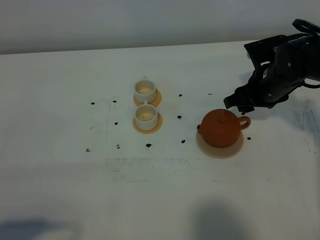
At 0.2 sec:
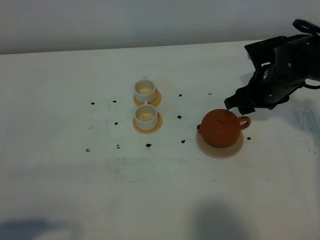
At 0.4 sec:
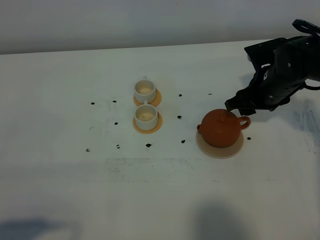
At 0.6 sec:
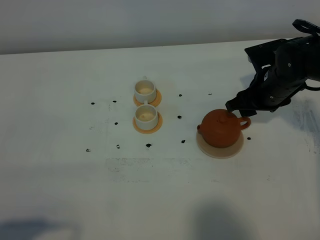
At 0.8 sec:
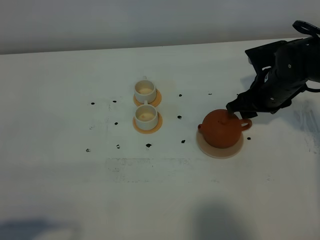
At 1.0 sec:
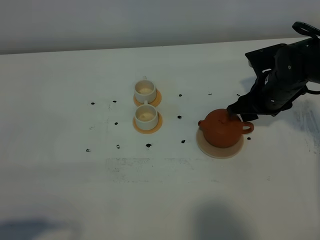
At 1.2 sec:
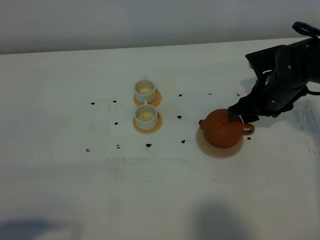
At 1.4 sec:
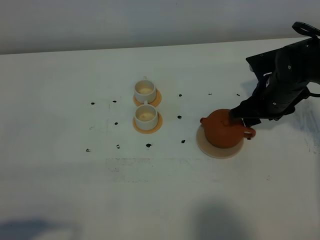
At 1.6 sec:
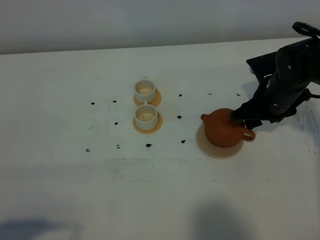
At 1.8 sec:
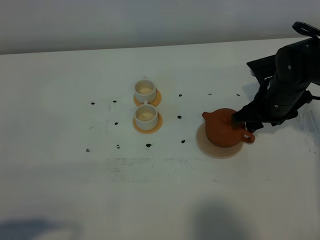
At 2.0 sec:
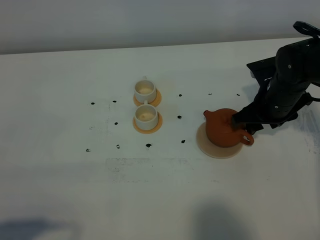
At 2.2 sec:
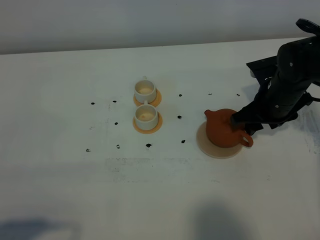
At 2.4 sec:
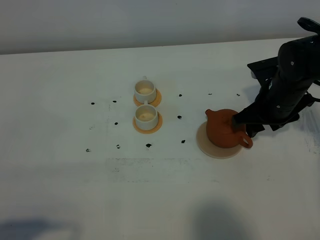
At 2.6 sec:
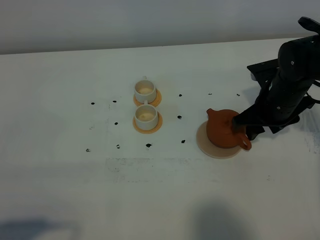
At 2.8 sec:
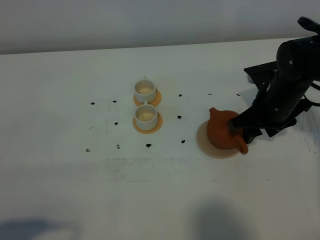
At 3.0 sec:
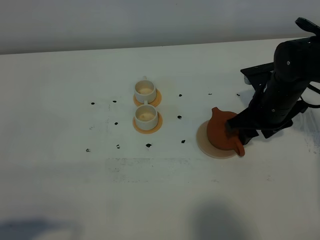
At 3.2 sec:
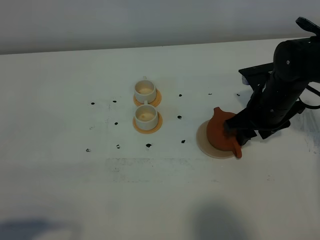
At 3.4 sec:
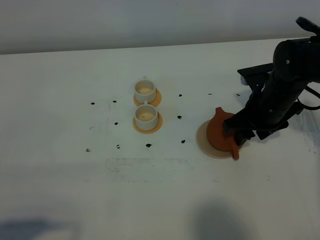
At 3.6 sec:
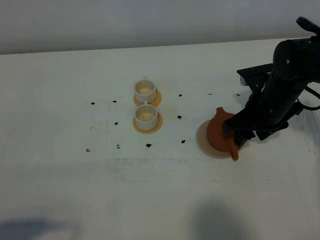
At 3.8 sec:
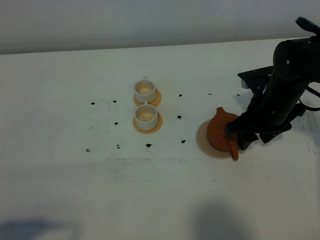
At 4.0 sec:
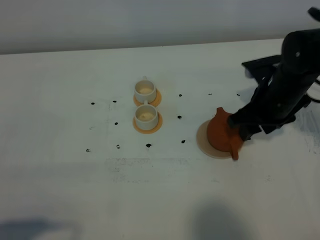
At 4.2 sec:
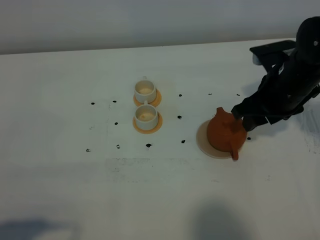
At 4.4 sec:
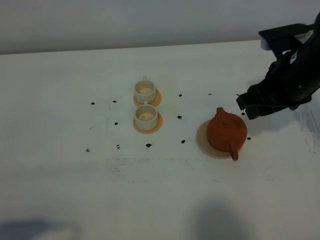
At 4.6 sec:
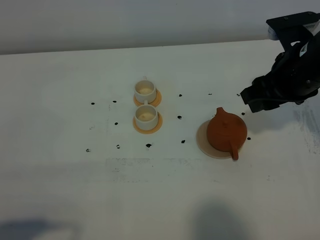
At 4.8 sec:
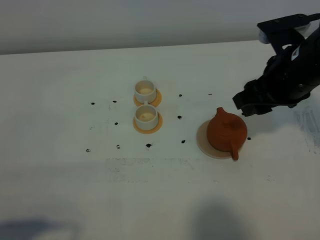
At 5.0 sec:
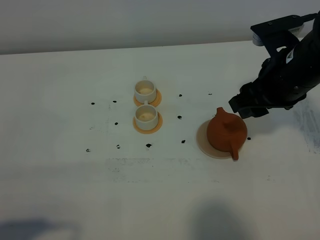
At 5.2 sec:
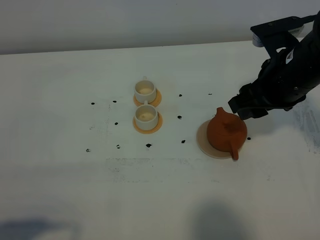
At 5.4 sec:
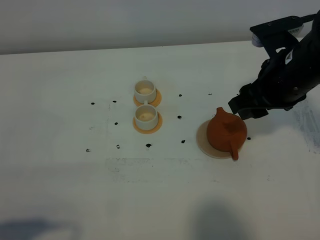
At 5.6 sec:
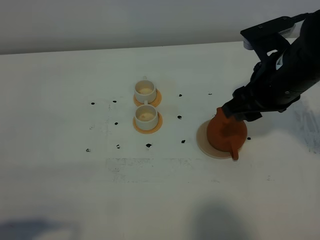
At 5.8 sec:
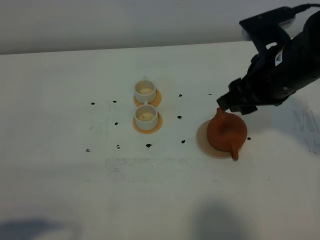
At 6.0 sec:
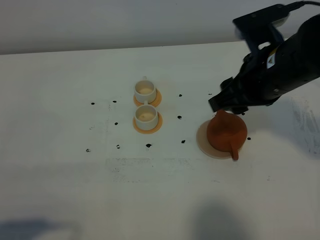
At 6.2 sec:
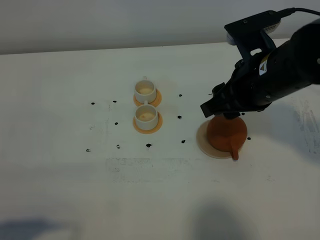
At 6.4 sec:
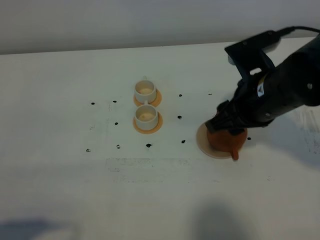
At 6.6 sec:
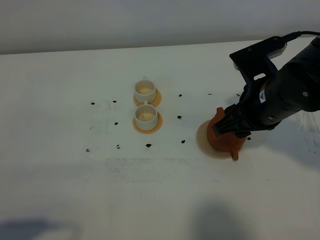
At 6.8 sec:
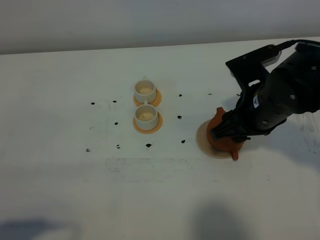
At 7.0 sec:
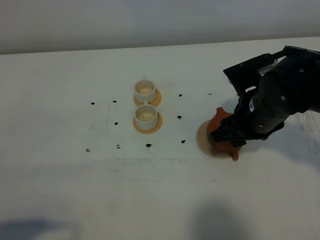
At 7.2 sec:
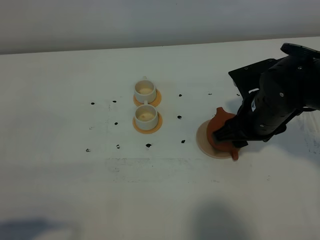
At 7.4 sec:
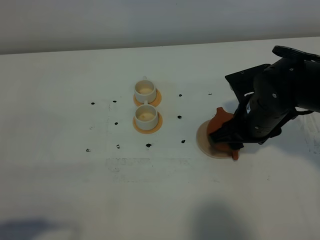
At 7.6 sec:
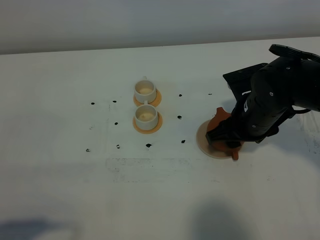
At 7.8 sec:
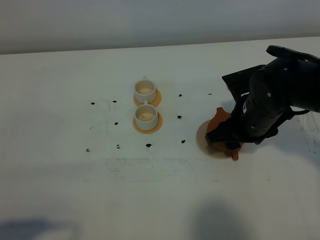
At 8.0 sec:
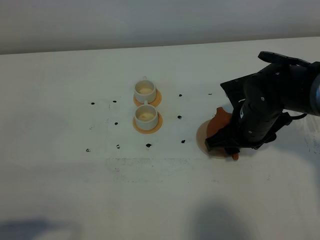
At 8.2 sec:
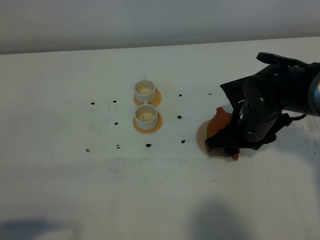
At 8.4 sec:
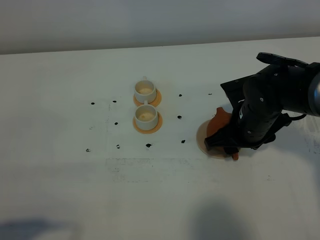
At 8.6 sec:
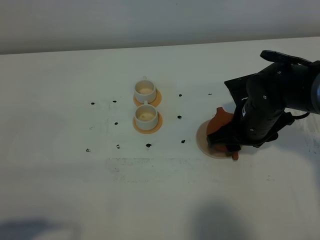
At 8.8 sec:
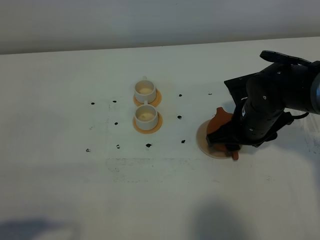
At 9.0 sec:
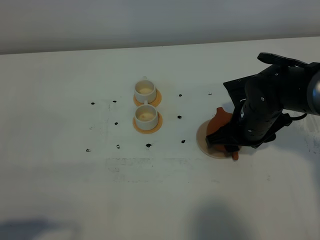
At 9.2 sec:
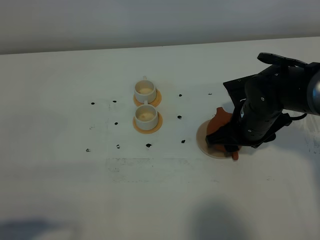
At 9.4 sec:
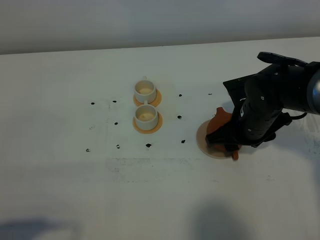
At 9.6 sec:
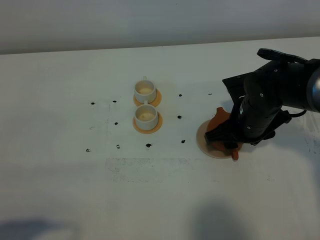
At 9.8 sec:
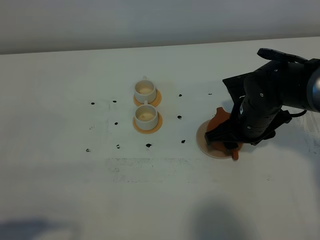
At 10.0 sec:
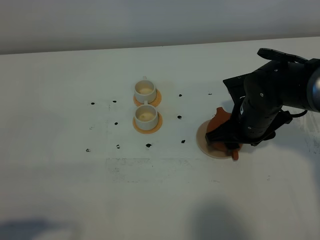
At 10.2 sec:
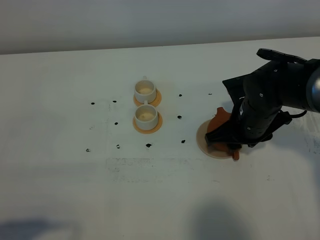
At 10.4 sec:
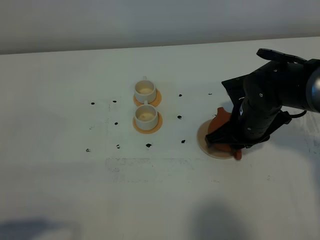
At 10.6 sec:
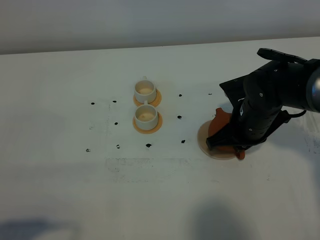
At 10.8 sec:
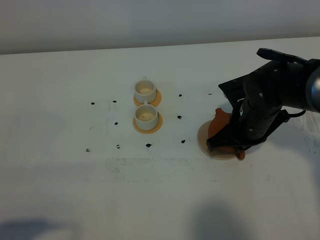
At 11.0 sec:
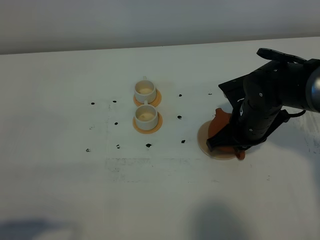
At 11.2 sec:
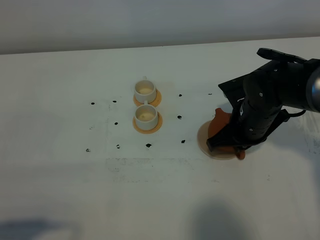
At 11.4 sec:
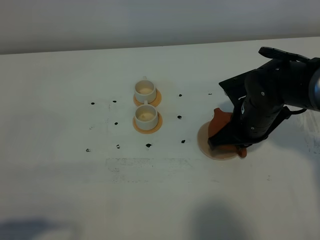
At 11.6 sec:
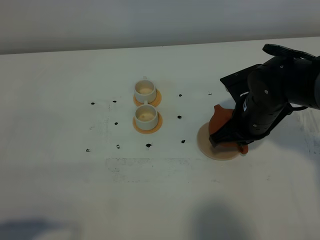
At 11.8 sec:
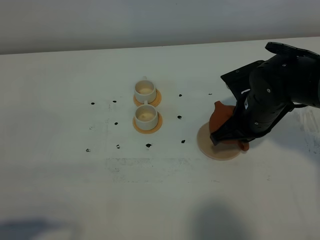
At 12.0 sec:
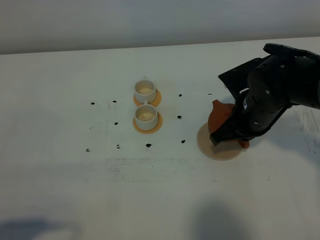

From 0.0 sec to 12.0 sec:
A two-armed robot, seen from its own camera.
Task of the whole recording: grasp the brown teapot and pour the tea into the two white teacups one by one, put the brown teapot back in its original place.
From 0.0 sec to 3.0 sec: The grippers make only small movements.
From 3.0 sec to 4.4 sec: The right gripper is displaced upward by approximately 10 cm.
From 4.4 sec to 6.0 sec: The right gripper moves to the left, roughly 5 cm.
From 6.0 sec to 7.6 sec: The right gripper goes approximately 10 cm downward.
From 7.6 sec to 9.0 sec: The grippers make only small movements.
From 9.0 sec to 10.4 sec: The right gripper closes its fingers.
From 10.4 sec to 12.0 sec: The grippers stay close to where they were, moving slightly.

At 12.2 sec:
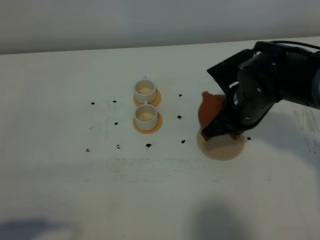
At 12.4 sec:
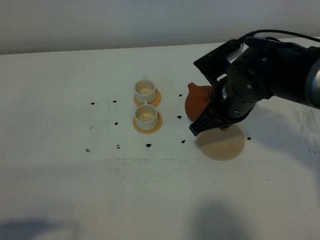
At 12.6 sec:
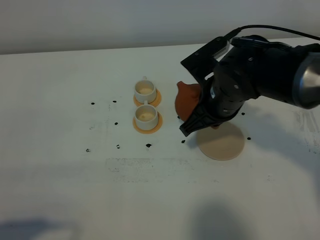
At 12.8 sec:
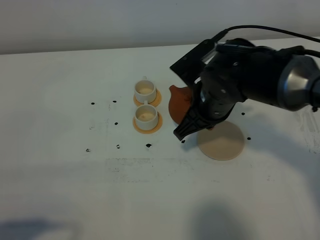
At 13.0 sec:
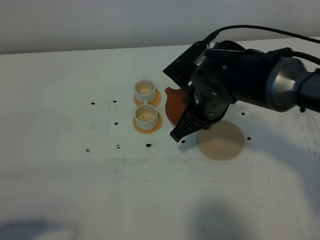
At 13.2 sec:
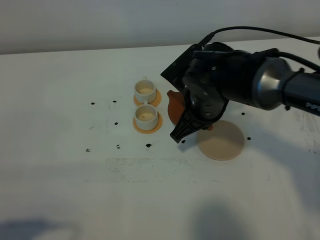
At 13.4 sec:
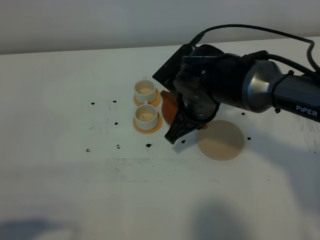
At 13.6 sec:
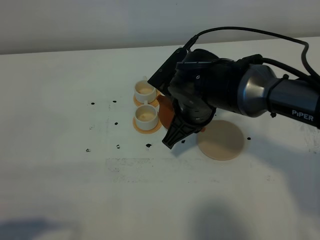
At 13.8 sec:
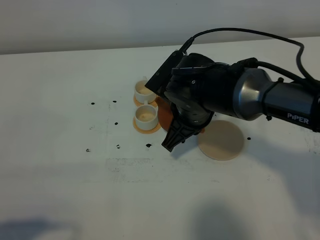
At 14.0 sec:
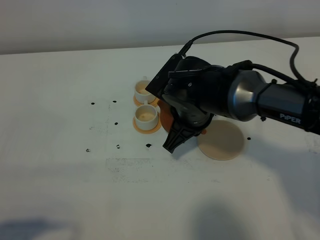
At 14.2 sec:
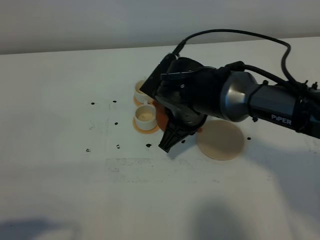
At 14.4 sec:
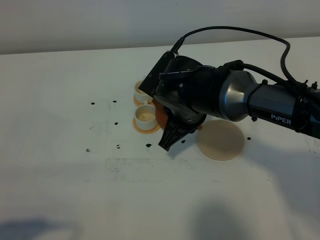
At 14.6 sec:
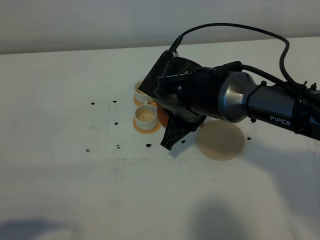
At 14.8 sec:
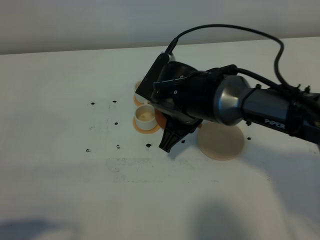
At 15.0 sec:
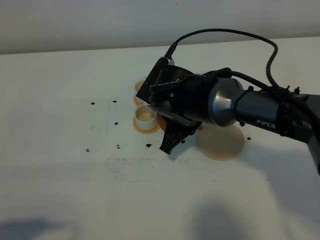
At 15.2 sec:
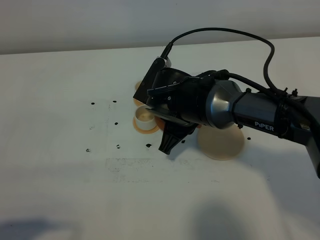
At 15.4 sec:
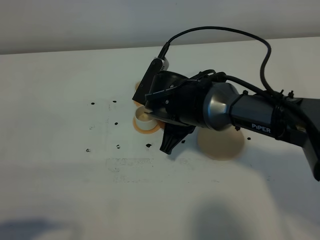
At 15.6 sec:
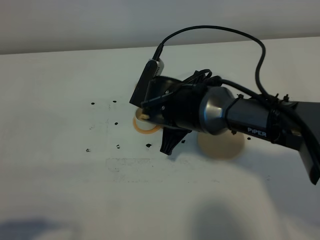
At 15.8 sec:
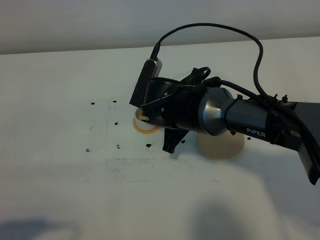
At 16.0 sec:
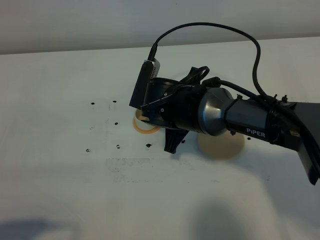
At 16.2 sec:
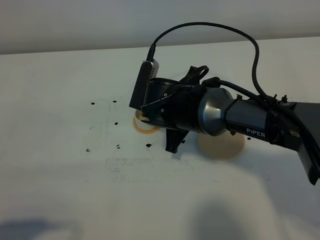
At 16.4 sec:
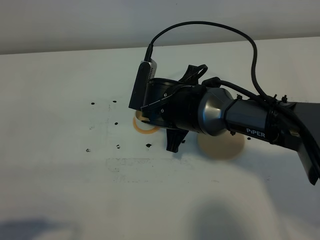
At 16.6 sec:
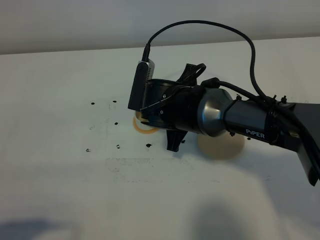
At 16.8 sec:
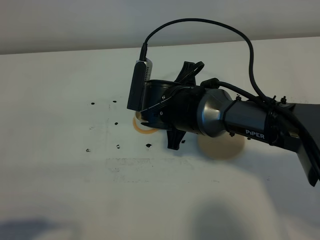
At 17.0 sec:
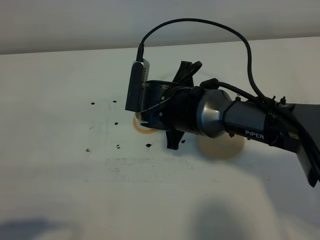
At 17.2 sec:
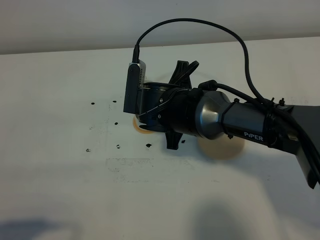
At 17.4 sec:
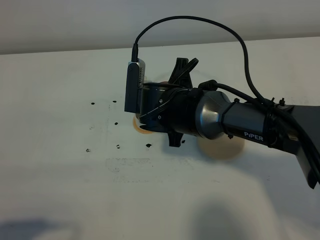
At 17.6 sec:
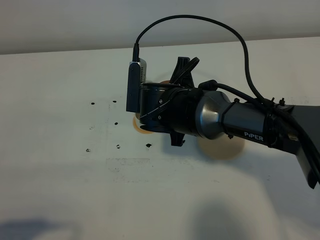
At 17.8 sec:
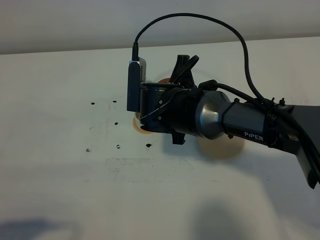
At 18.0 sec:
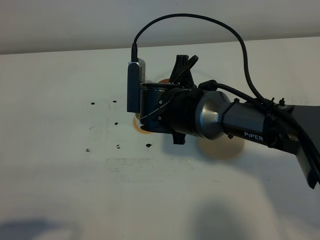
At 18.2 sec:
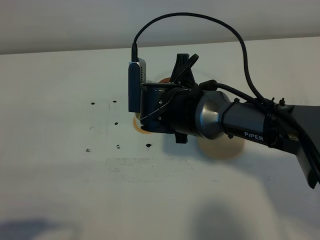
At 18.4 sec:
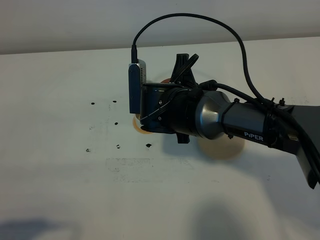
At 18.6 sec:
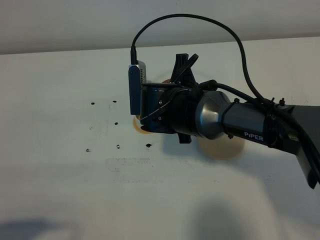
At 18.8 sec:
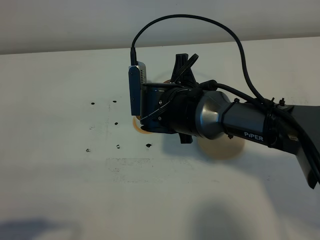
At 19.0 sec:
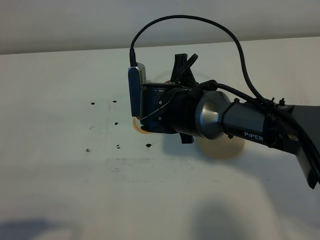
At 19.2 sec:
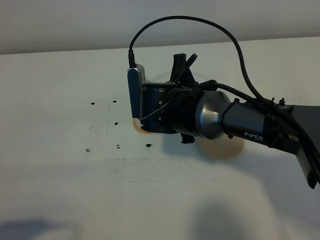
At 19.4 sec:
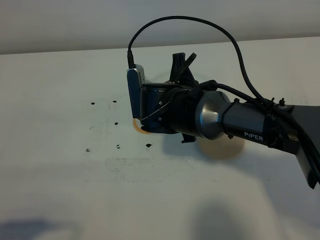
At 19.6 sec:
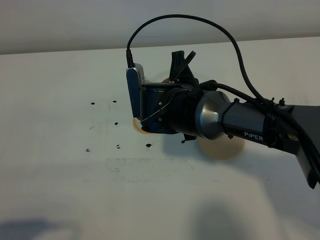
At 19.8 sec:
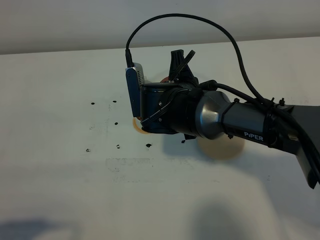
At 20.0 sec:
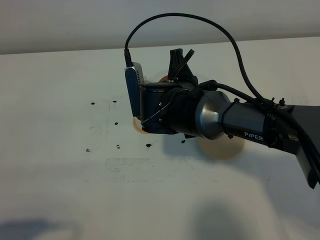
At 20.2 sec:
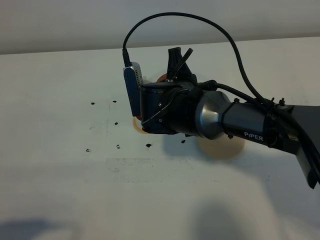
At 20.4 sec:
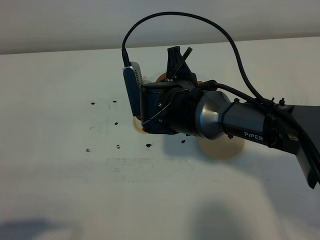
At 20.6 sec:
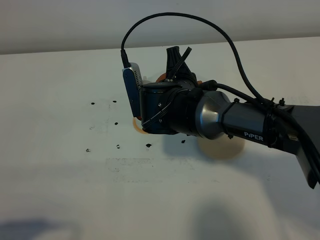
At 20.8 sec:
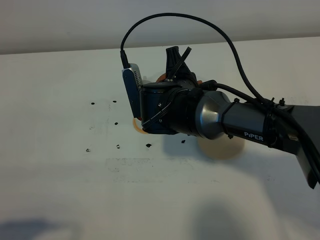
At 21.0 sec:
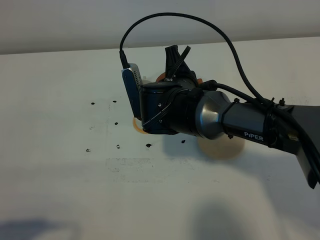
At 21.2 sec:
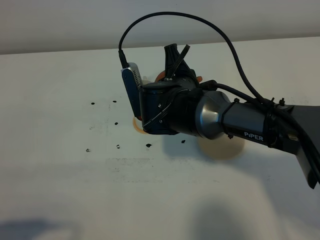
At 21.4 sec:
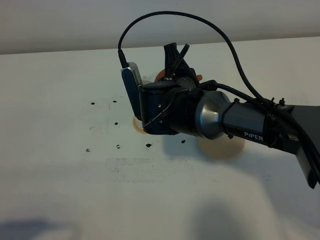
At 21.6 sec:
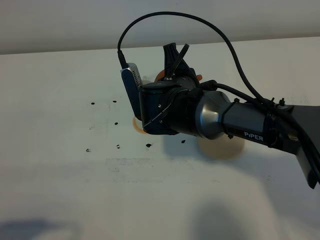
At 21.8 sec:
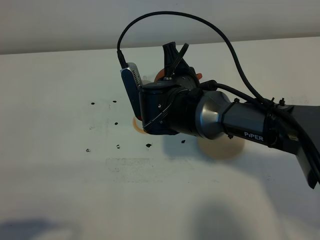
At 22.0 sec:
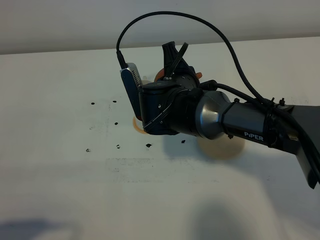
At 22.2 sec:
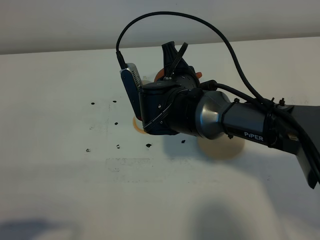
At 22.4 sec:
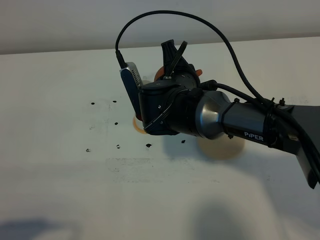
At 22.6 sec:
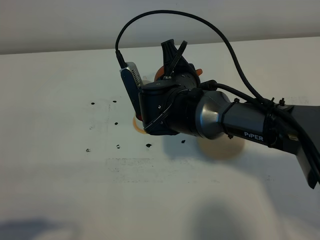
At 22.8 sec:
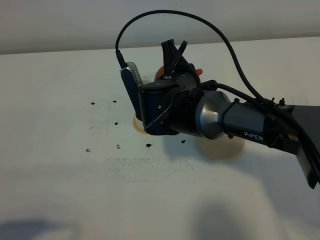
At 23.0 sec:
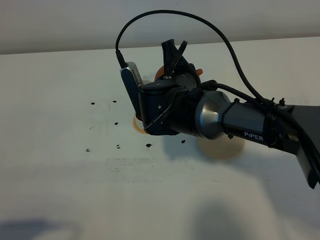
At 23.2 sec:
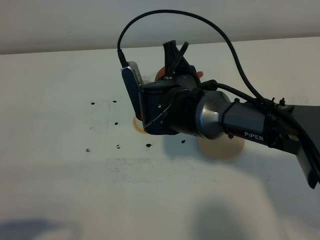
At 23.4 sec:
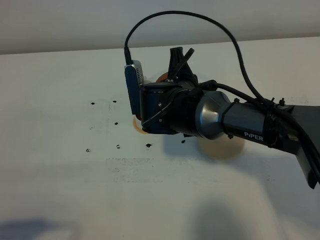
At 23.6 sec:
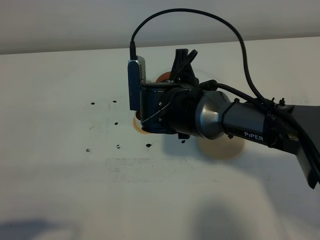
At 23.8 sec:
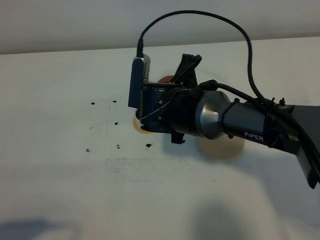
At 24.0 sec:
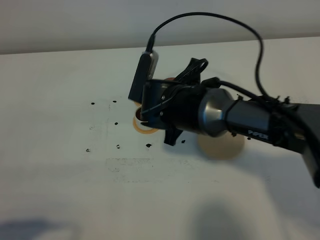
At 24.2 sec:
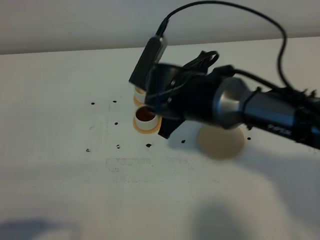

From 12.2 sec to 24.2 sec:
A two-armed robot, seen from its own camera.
Task of the whole recording: grasp the brown teapot and pour the tea into the two white teacups one by one, put the brown teapot back in its original place.
From 12.2 sec to 13.8 sec: The right gripper travels to the left by about 10 cm.
From 13.8 sec to 15.2 sec: There are only small adjustments of the grippers.
From 15.2 sec to 16.6 sec: The grippers move only a little.
From 16.6 sec to 18.2 sec: The grippers make only small movements.
From 18.2 sec to 21.2 sec: The grippers move only a little.
From 21.2 sec to 22.6 sec: Both grippers stay put.
